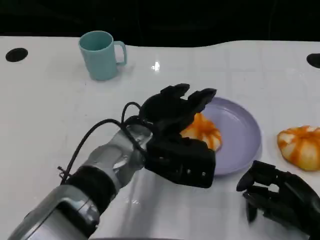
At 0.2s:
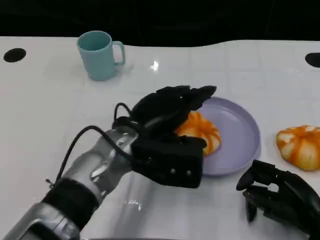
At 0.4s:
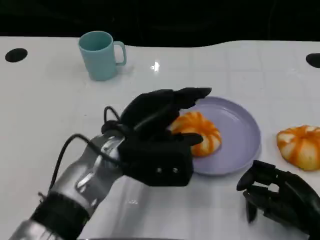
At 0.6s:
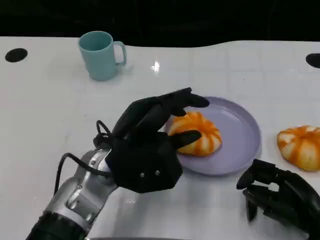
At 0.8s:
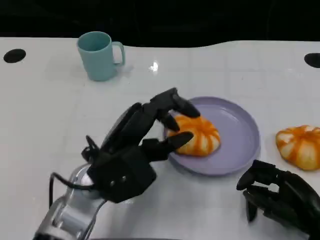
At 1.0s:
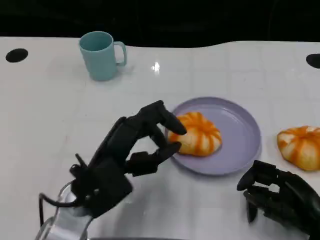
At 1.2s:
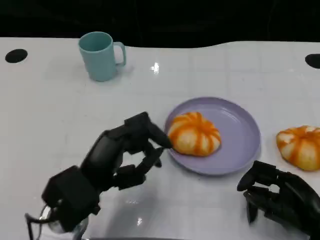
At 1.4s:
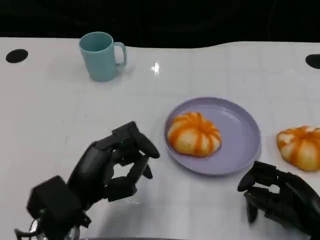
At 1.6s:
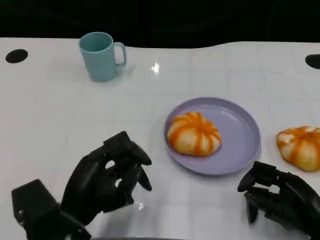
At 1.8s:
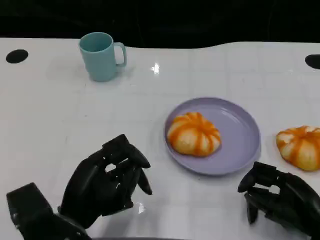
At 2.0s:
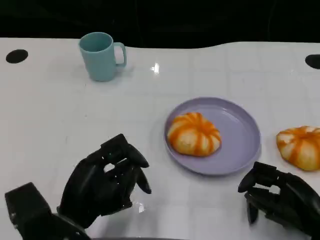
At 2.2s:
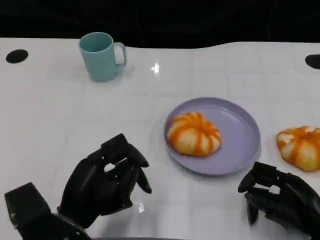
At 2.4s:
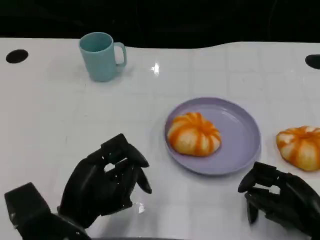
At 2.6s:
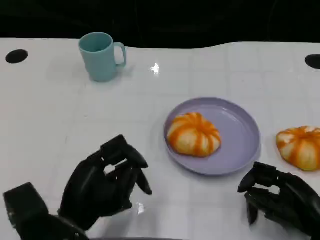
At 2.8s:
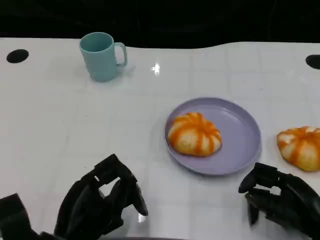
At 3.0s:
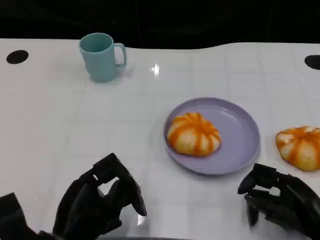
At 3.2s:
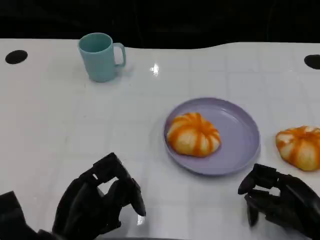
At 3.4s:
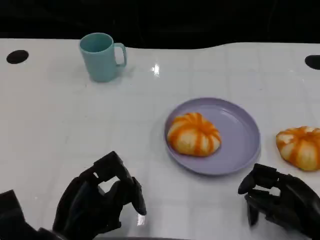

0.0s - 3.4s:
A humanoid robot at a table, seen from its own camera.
Task of the whole recording: Grasp the bread from the table and place it into the plate.
0.0s - 1.6s: The left hand moves to the left and backward, approximately 15 cm.

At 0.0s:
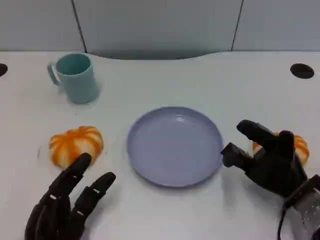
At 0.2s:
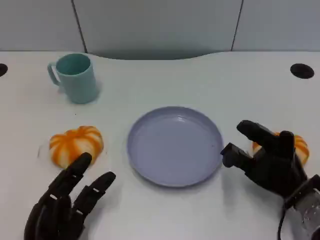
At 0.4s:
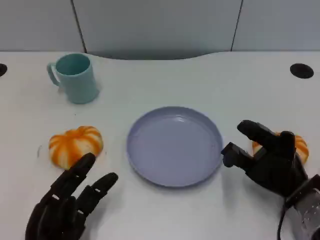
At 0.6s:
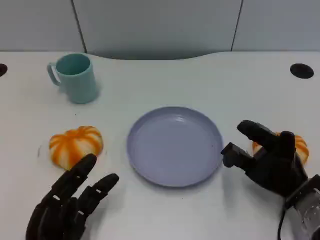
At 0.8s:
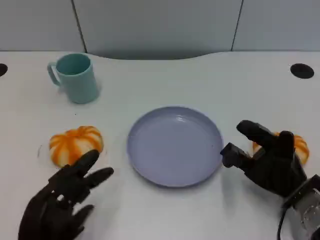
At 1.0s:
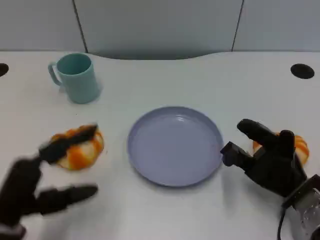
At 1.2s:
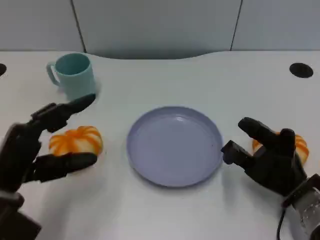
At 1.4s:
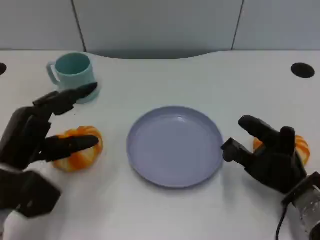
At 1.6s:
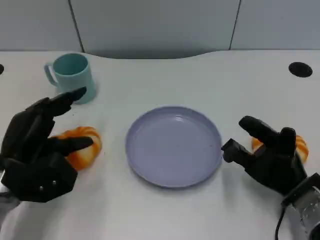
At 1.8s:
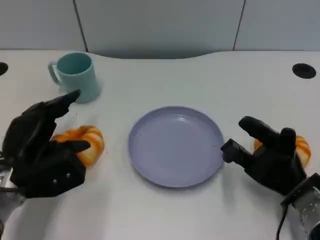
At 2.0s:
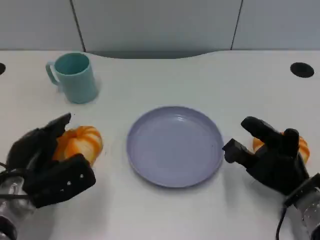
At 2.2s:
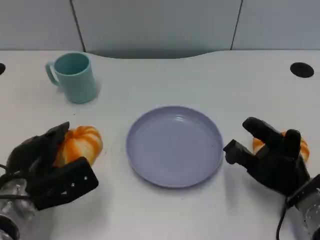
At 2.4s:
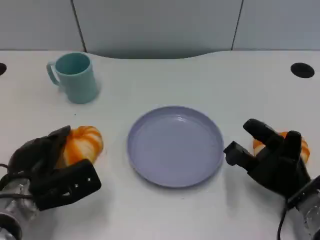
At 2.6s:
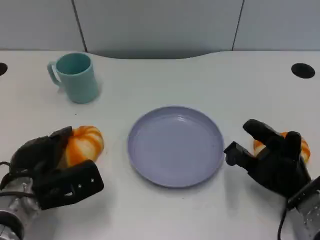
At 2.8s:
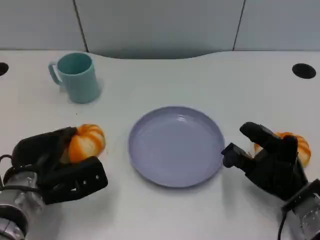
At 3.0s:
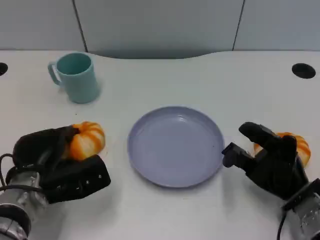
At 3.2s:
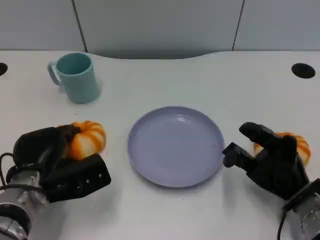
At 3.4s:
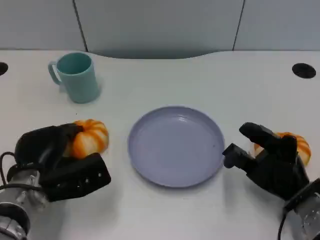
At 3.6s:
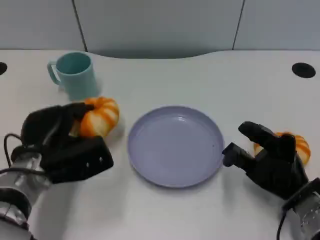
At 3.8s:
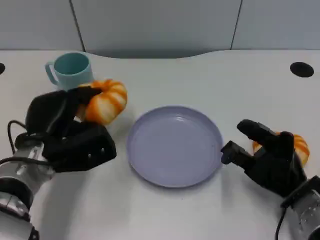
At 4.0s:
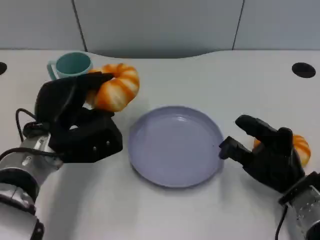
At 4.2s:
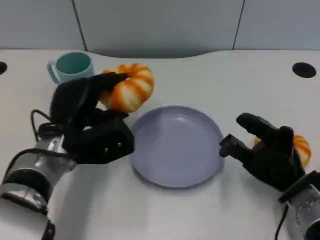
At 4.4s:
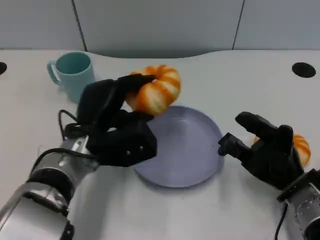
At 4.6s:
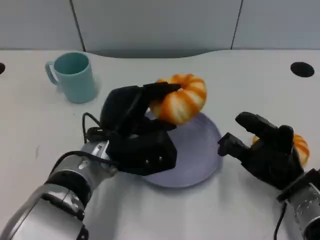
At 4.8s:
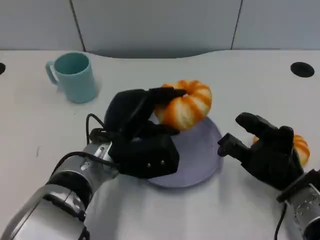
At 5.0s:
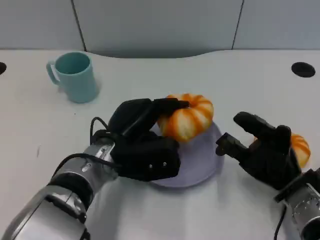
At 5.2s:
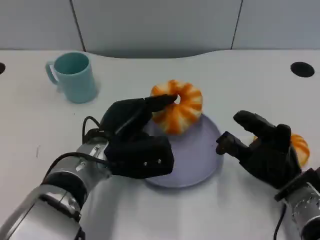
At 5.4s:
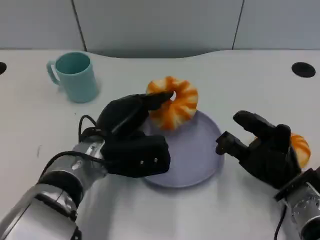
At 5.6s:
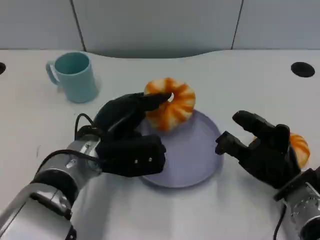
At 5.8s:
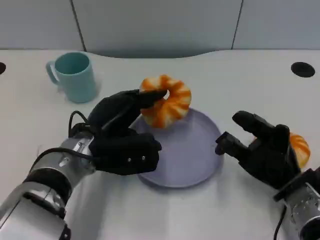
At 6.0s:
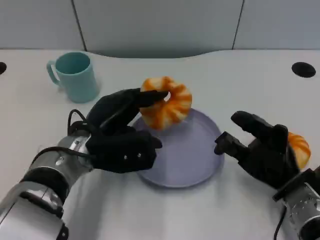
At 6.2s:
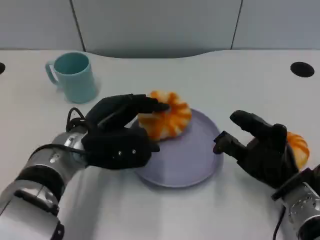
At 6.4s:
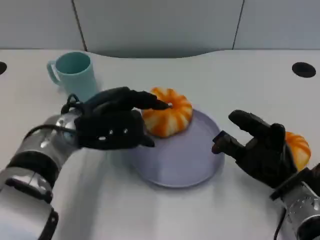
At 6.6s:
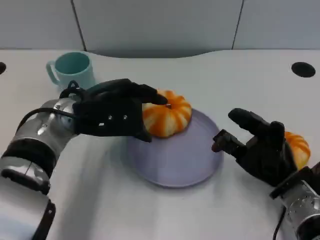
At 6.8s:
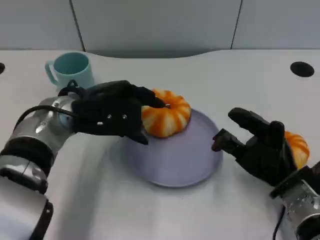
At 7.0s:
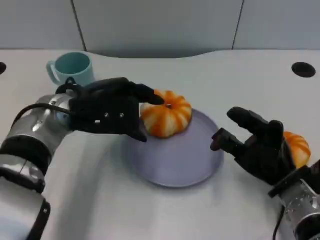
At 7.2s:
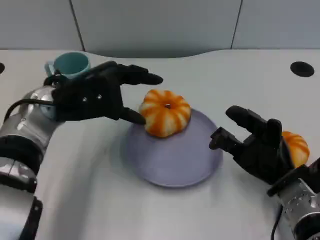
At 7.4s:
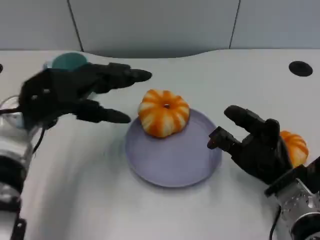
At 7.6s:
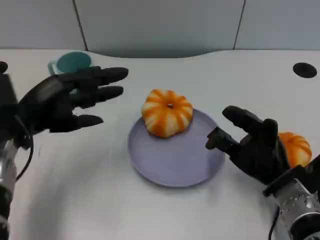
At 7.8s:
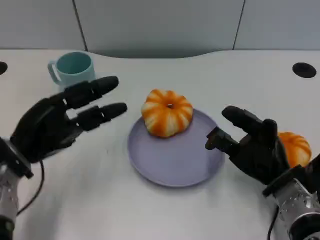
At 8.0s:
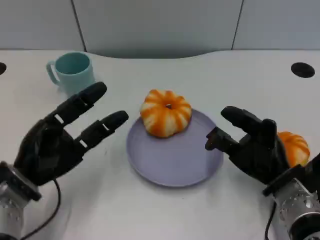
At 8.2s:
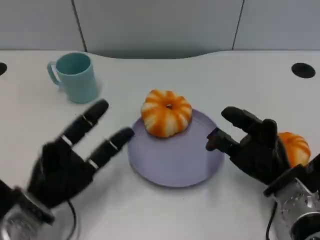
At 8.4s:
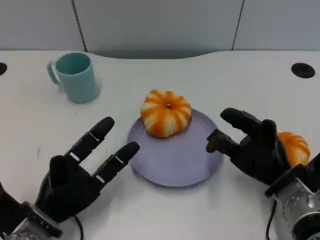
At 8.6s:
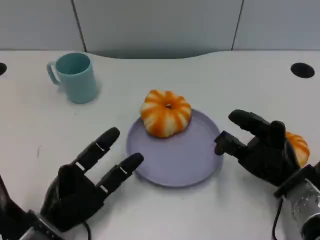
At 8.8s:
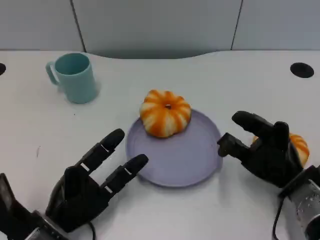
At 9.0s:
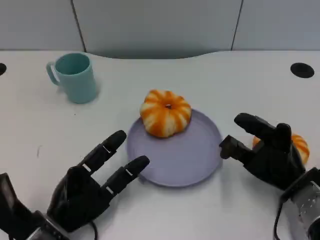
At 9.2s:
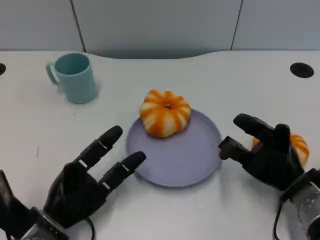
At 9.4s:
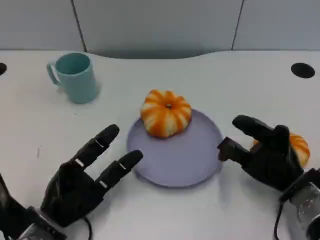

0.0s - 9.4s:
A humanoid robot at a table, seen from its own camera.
Task of the whole recording: Grasp the bread from the table and place it into the plate.
0.0s - 1.6s: The left hand travels forward and upward by approximately 15 cm.
3.2s - 4.8s: The left hand is displaced to the right by approximately 10 cm.
4.8s - 6.2s: The left hand changes place by some 5 cm.
6.2s - 7.8s: The left hand shifts approximately 10 cm to the left.
7.8s - 9.4s: The left hand shifts approximately 10 cm downward and backward.

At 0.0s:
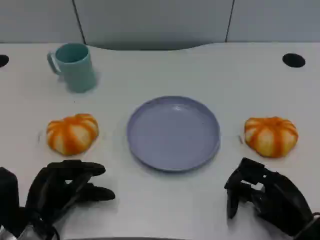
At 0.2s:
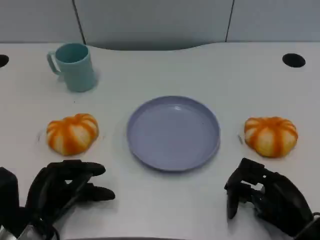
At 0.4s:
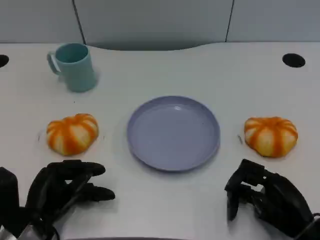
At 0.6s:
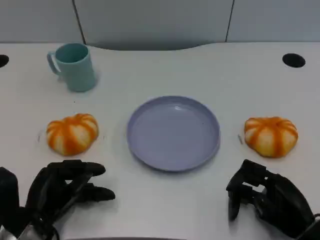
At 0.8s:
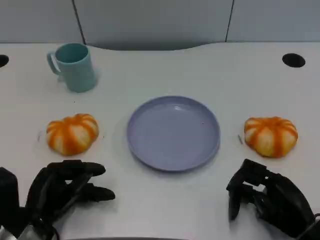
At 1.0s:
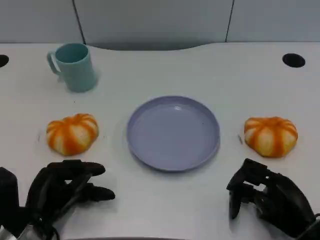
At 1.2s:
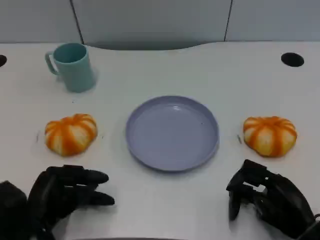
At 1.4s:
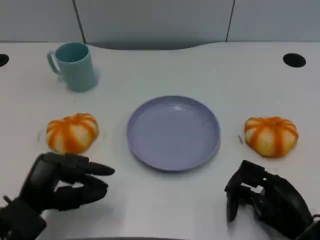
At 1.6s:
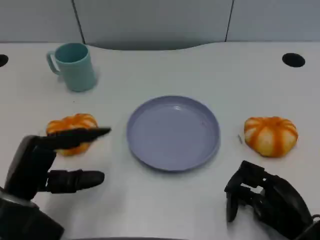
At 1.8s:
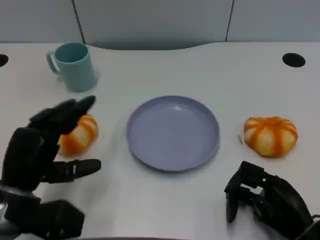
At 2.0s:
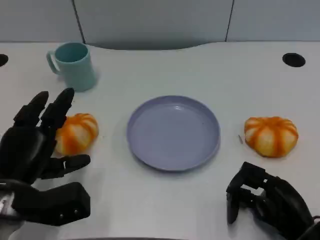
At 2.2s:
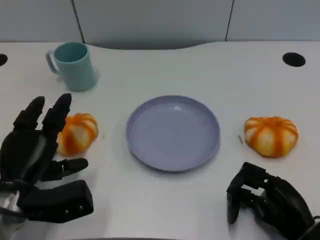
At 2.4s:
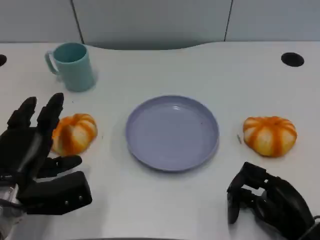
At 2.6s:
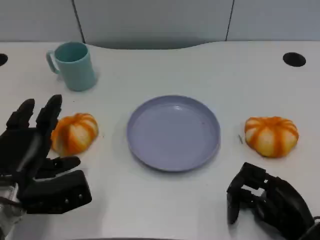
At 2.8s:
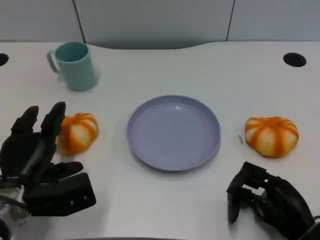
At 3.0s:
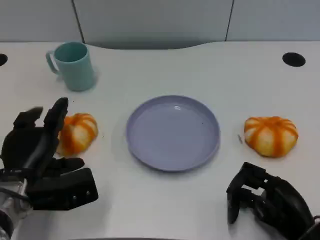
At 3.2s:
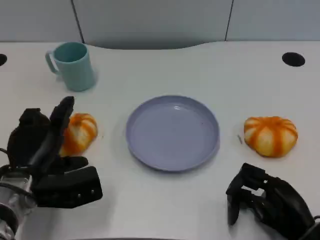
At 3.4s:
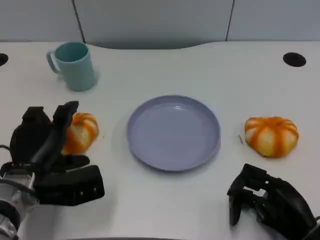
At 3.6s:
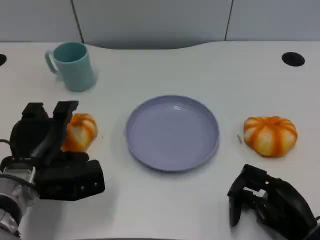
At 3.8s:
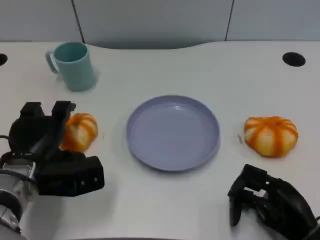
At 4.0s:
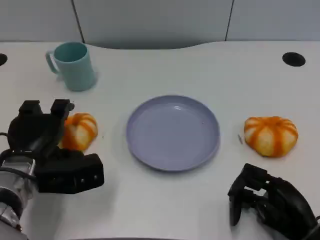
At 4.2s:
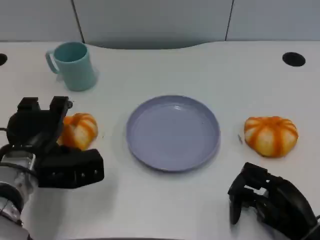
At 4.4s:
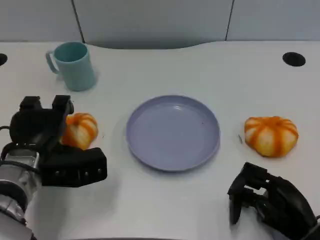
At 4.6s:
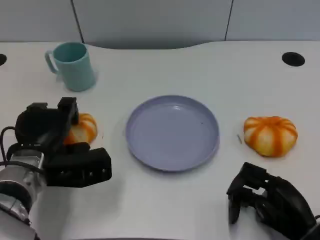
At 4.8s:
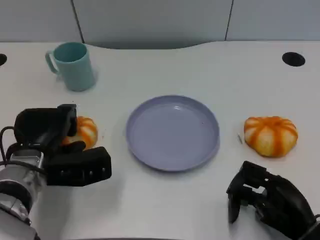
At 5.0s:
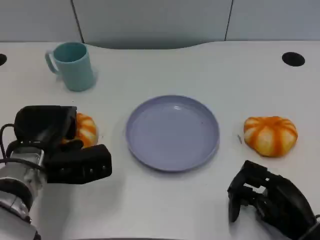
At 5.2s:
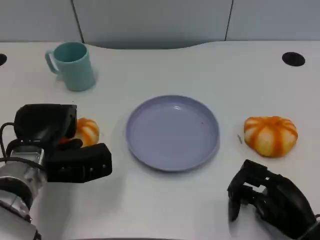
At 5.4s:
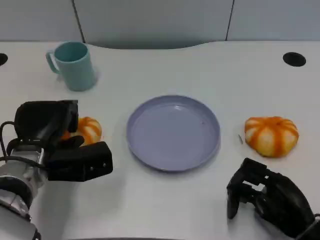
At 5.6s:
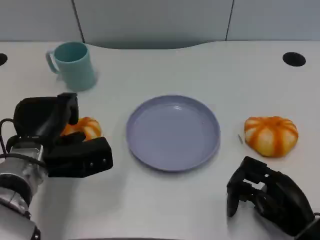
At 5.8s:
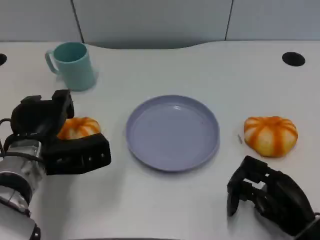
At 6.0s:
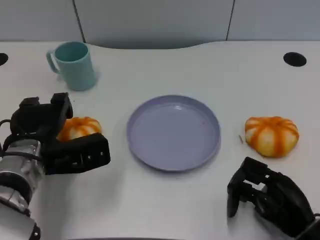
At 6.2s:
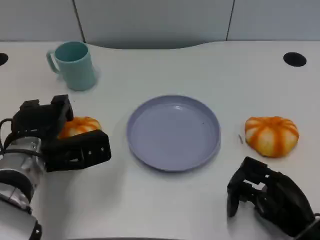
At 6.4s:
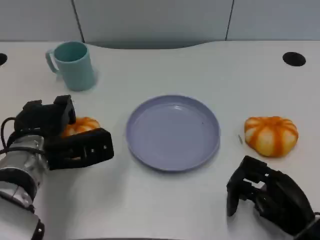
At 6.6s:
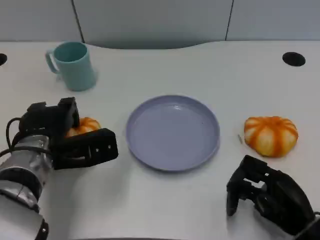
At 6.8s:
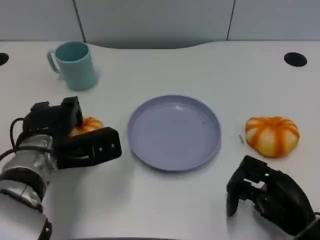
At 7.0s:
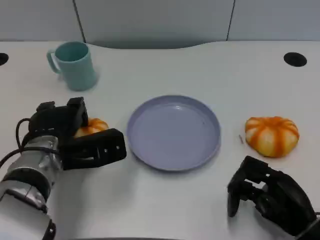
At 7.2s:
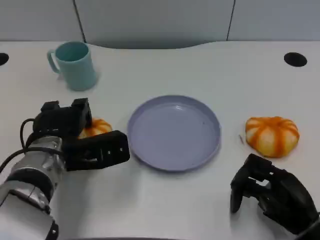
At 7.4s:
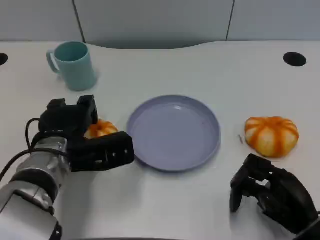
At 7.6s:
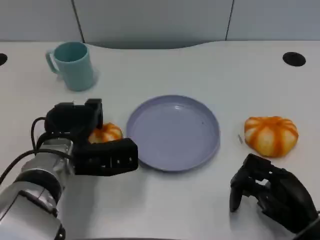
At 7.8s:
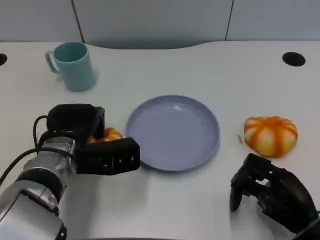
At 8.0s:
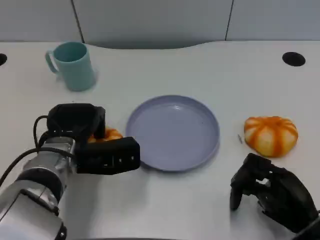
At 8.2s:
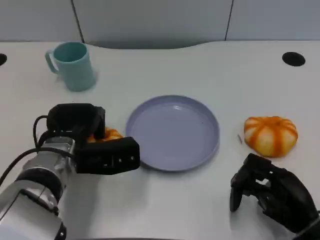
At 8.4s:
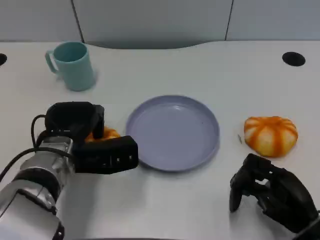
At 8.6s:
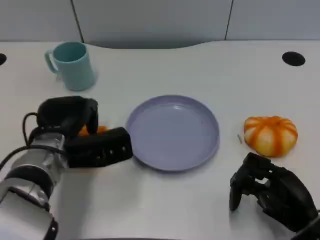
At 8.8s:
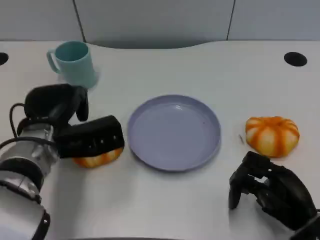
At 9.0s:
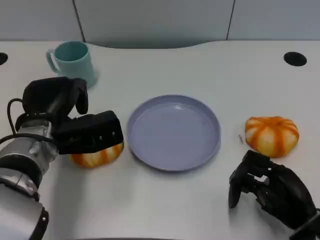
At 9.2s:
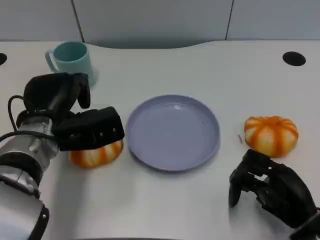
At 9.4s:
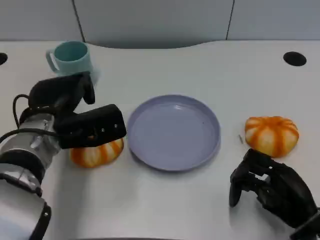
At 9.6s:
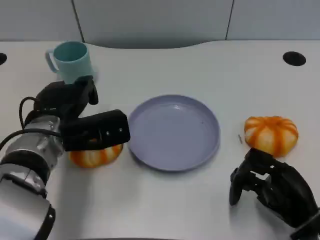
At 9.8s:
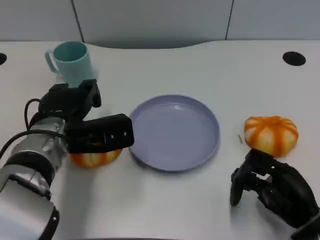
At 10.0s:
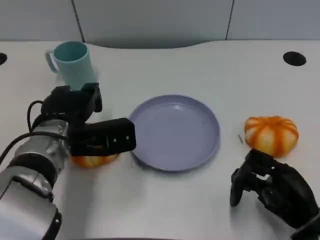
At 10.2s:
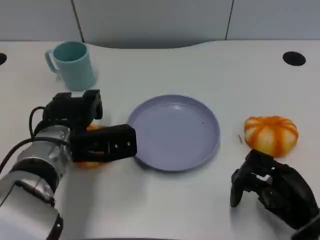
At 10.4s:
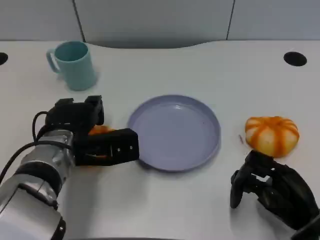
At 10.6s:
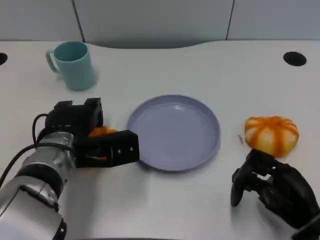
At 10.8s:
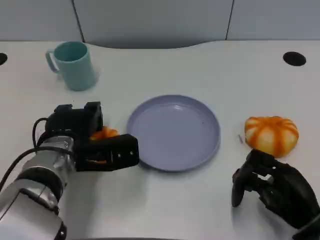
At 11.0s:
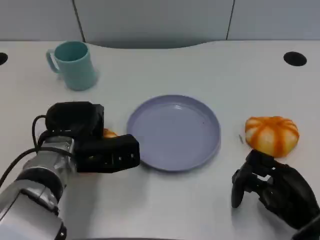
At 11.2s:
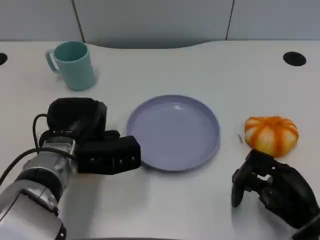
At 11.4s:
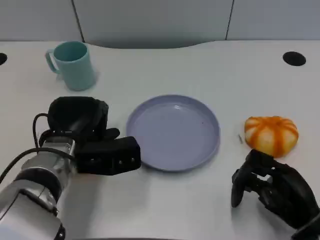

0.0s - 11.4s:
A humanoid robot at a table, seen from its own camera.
Task of the whole recording: Grasp the bread from the table and place it into the plate.
1.4s - 2.8s: The left hand is displaced forward by approximately 5 cm.
2.8s - 4.2s: The hands make only small movements.
4.2s - 8.6s: The hands stay close to where they were, moving slightly.
8.6s - 11.4s: The hands make only small movements.
